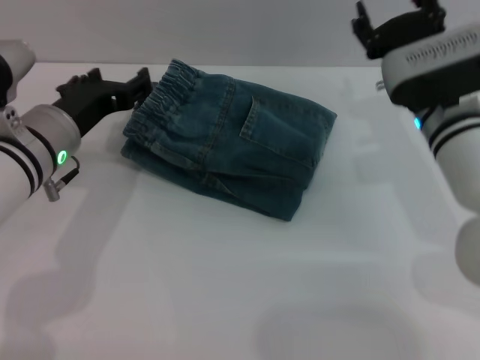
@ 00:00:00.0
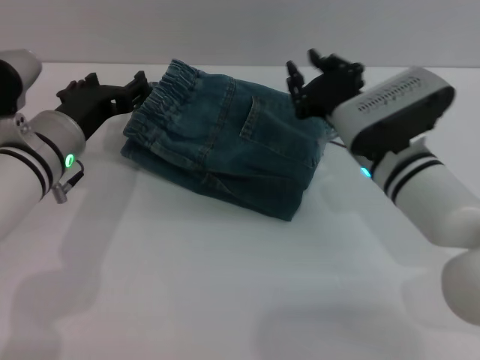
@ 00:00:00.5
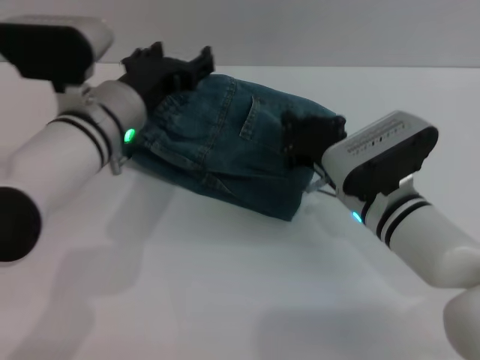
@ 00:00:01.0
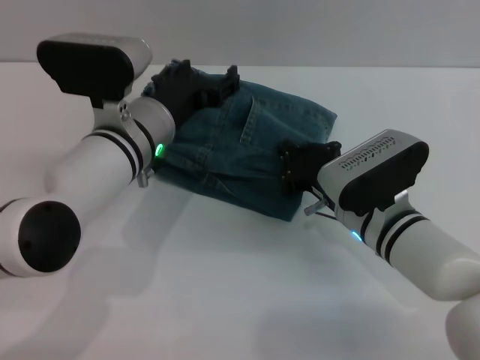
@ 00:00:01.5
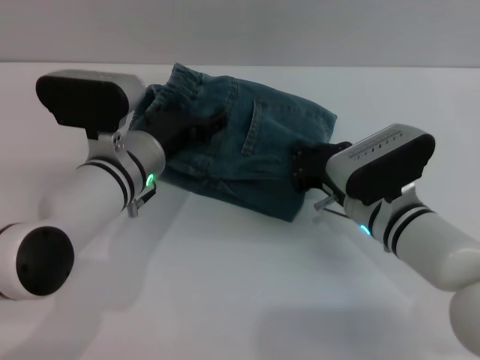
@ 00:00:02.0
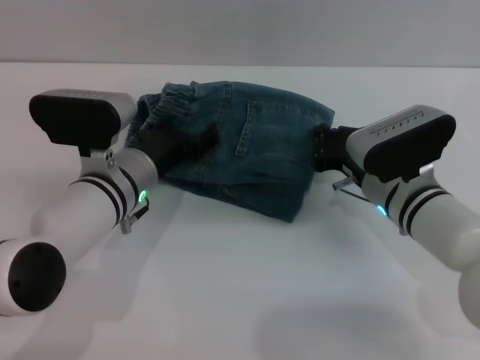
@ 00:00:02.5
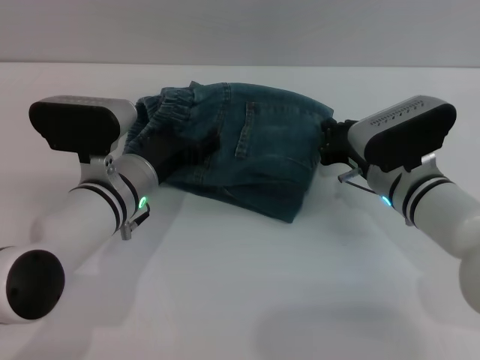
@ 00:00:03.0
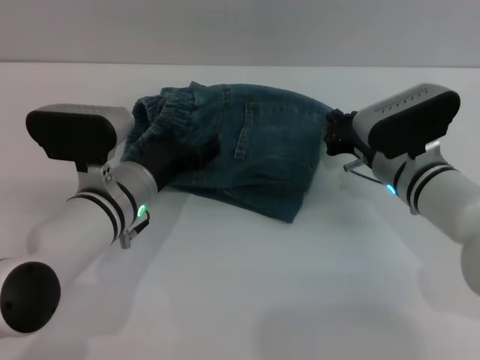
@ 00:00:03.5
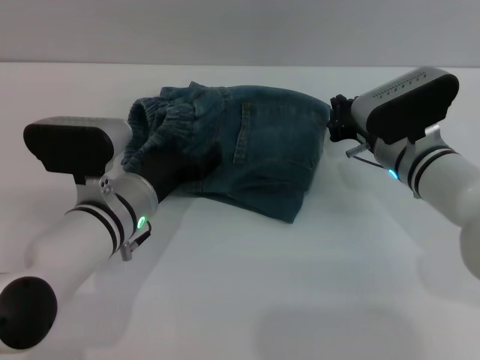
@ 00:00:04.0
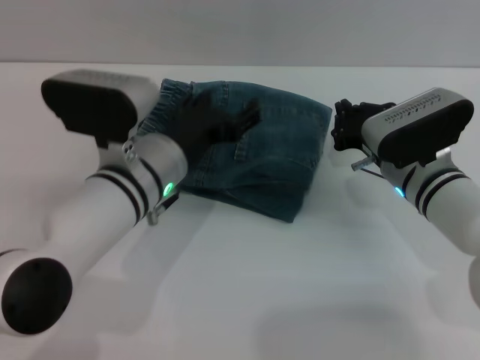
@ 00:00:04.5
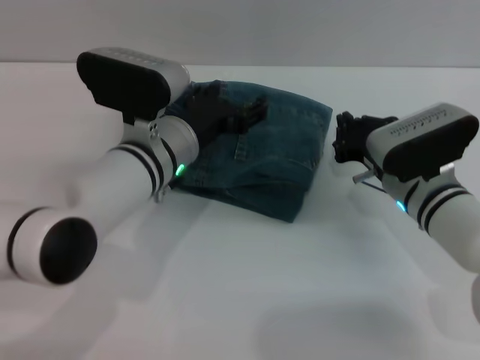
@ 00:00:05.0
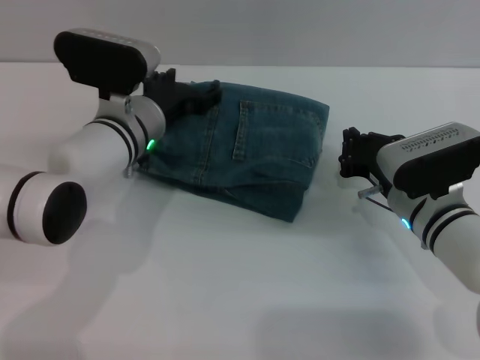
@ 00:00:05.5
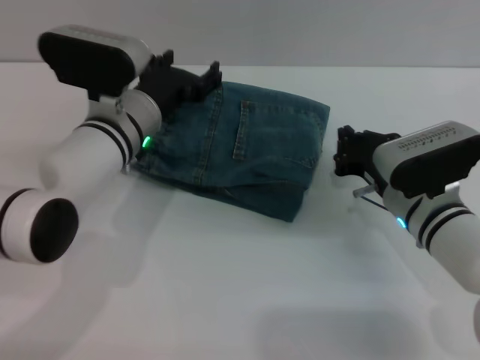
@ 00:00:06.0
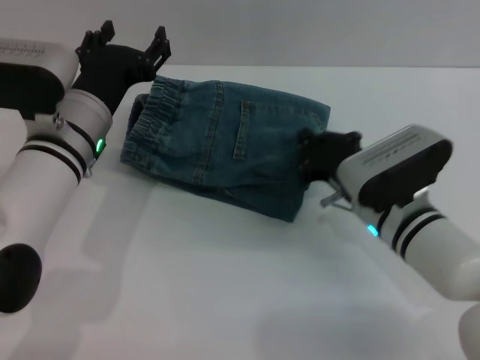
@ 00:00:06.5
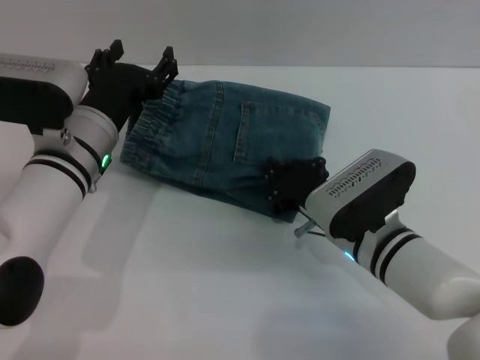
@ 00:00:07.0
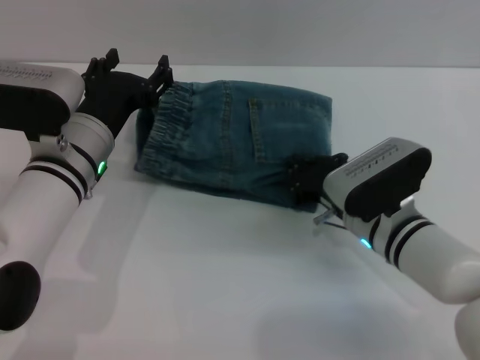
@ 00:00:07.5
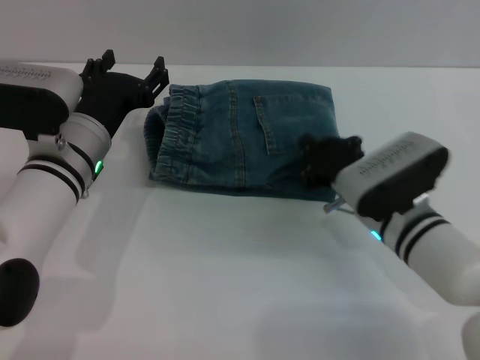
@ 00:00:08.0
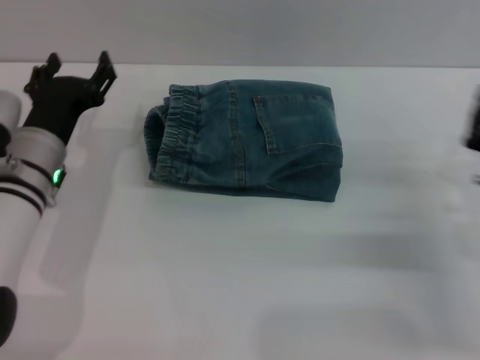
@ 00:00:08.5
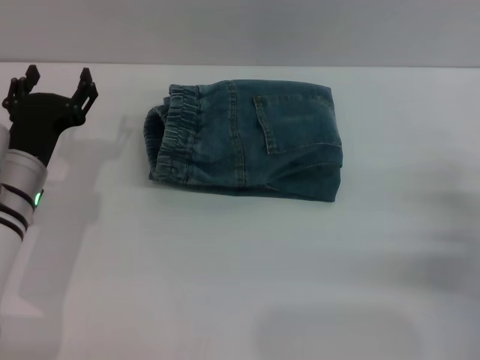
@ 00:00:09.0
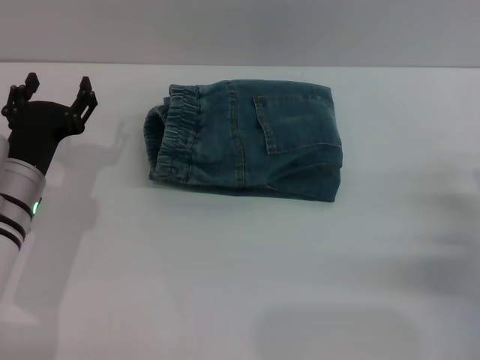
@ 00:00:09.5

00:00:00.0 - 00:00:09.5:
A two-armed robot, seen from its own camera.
Step, 00:00:00.0 - 00:00:08.0: Place the folded trousers onto the center area with the right grippers.
00:00:00.0 - 00:00:02.0: The right gripper moves downward and backward, roughly 10 cm, and closes. Meanwhile the left gripper moves to the right, some 5 cm.
00:00:02.0 - 00:00:04.0: The right gripper shifts some 5 cm forward.
00:00:04.0 - 00:00:05.5: The right gripper shifts roughly 5 cm backward. Meanwhile the left gripper heads forward, covering some 10 cm.
00:00:05.5 - 00:00:07.5: The left gripper goes some 5 cm backward.
00:00:07.5 - 00:00:09.5: The right gripper moves to the right and backward, approximately 15 cm, and opens its fingers. Meanwhile the left gripper goes about 5 cm to the left.
